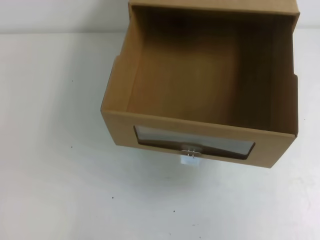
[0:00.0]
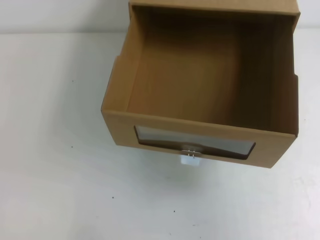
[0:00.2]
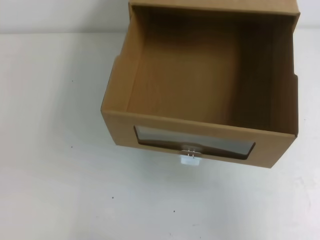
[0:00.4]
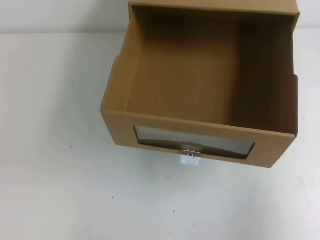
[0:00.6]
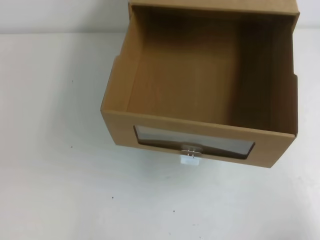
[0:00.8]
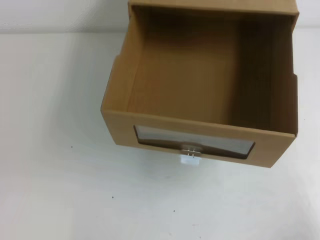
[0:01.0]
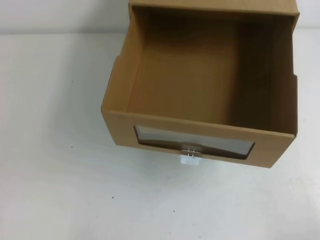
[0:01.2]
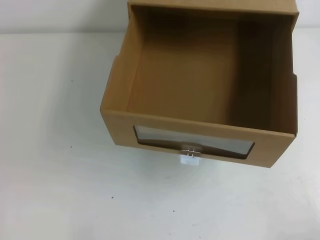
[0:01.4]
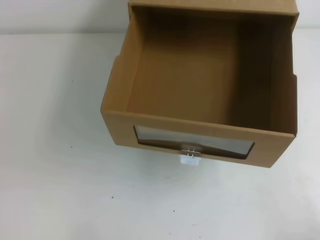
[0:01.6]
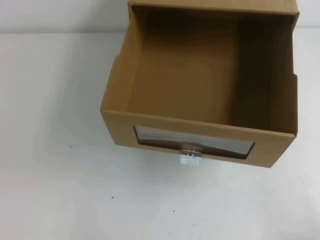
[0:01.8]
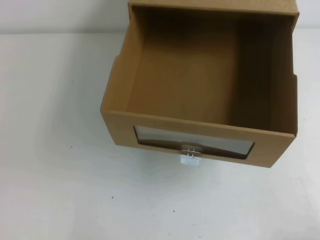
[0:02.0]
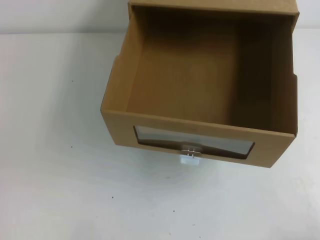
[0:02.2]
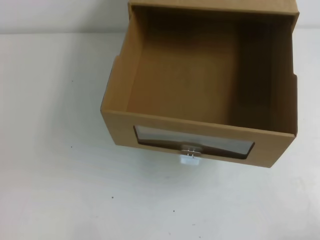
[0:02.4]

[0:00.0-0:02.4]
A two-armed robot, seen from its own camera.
Task of the whole recording: open the shoebox on the table.
Step, 0:00.0 to 0:02.4: Open the shoe box.
0:00.0 to 0:01.2: The right gripper moves downward, roughly 25 cm.

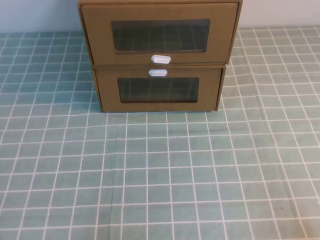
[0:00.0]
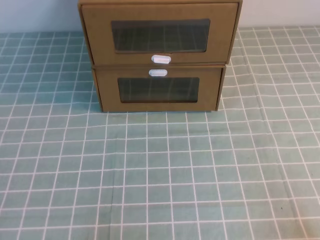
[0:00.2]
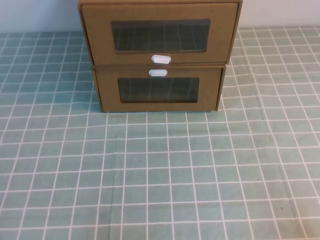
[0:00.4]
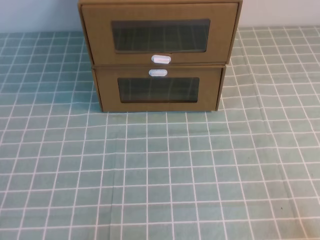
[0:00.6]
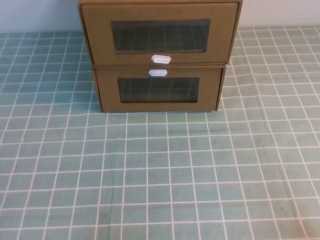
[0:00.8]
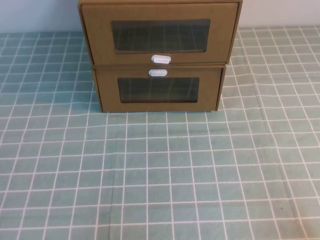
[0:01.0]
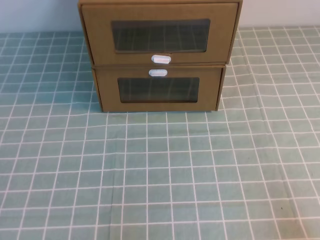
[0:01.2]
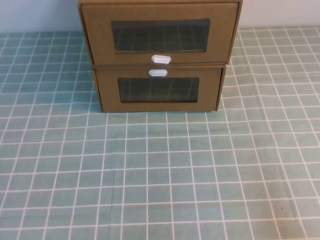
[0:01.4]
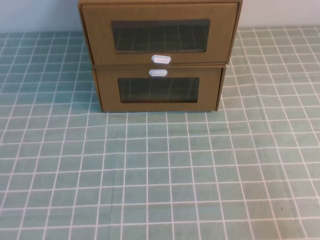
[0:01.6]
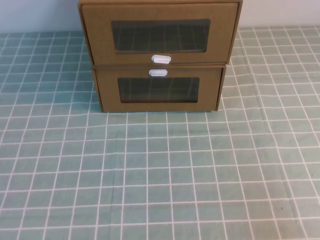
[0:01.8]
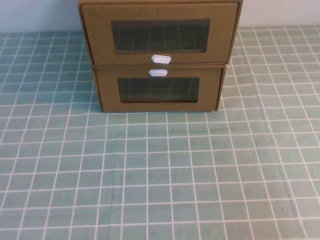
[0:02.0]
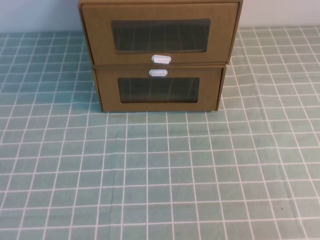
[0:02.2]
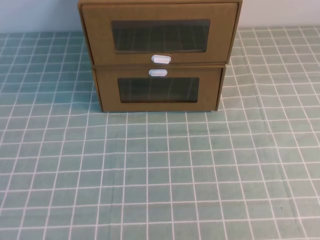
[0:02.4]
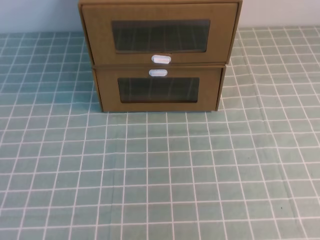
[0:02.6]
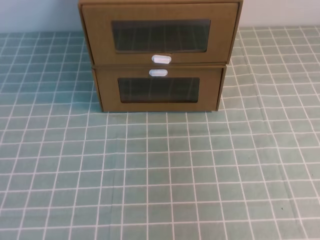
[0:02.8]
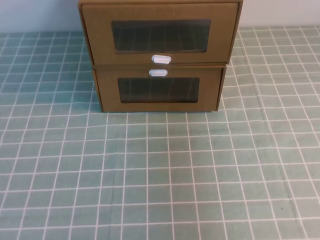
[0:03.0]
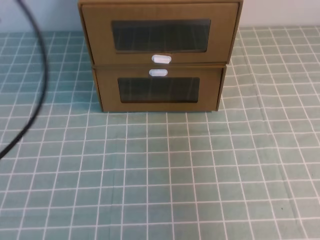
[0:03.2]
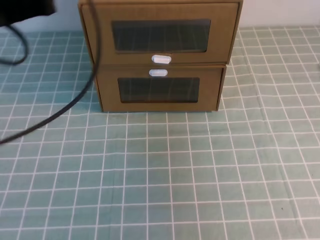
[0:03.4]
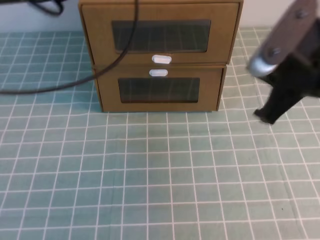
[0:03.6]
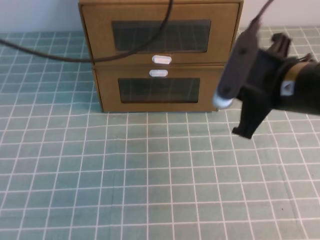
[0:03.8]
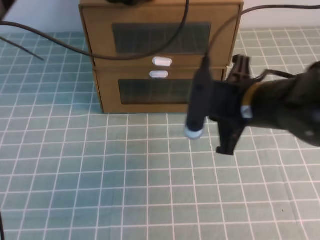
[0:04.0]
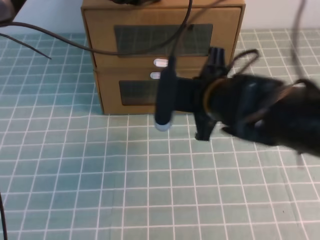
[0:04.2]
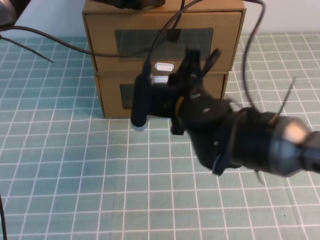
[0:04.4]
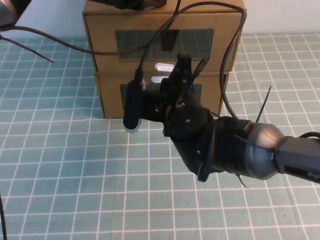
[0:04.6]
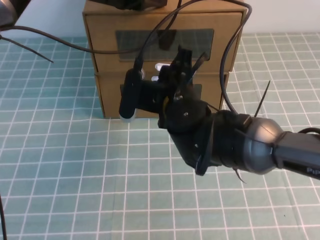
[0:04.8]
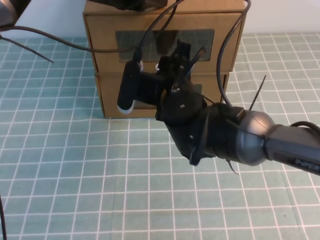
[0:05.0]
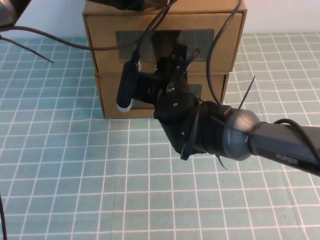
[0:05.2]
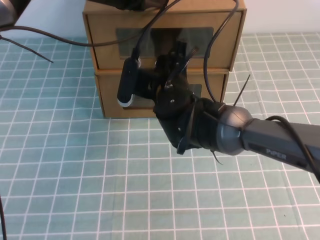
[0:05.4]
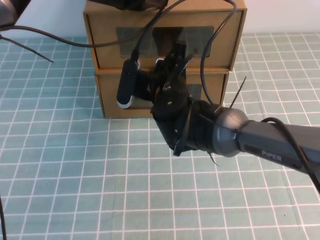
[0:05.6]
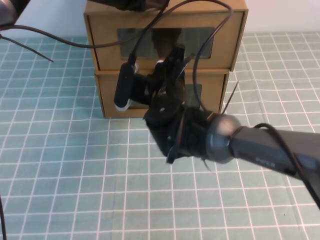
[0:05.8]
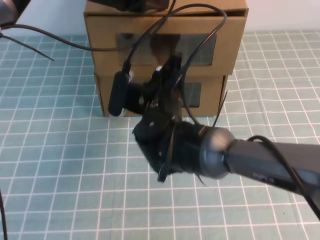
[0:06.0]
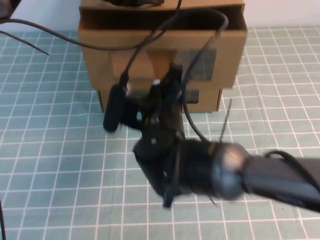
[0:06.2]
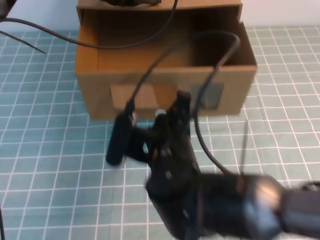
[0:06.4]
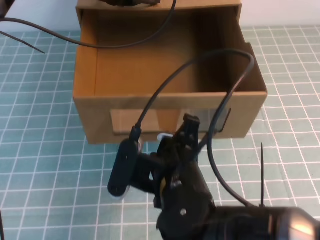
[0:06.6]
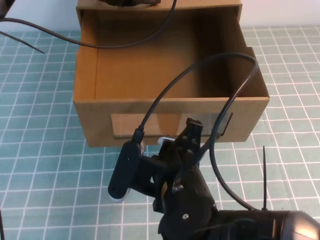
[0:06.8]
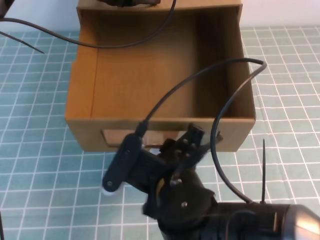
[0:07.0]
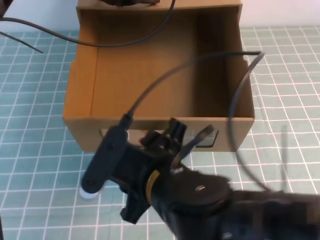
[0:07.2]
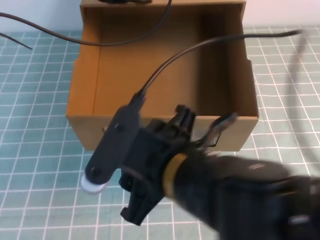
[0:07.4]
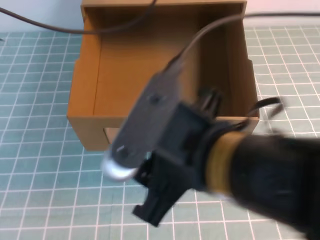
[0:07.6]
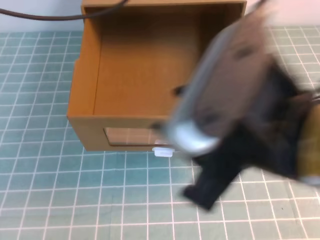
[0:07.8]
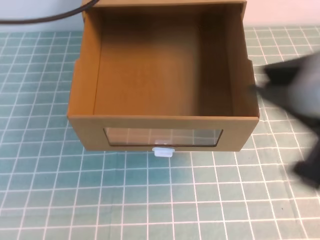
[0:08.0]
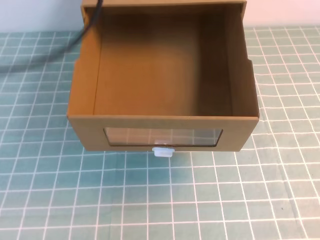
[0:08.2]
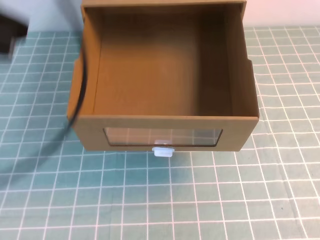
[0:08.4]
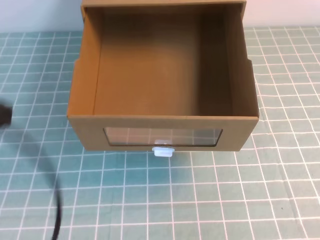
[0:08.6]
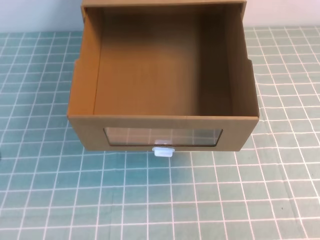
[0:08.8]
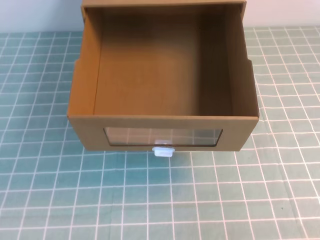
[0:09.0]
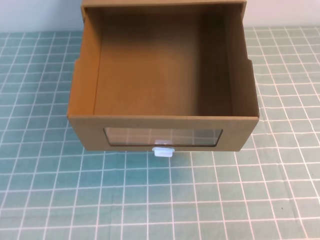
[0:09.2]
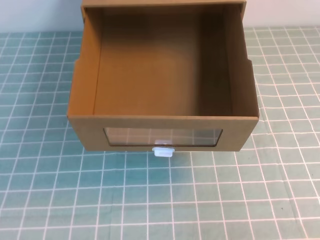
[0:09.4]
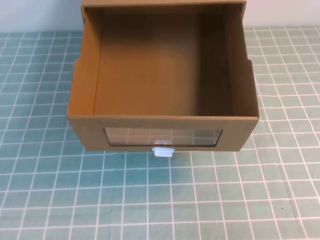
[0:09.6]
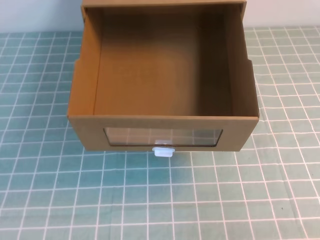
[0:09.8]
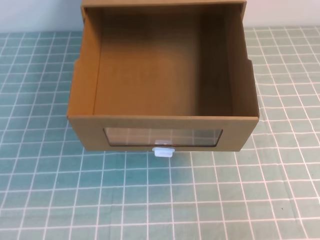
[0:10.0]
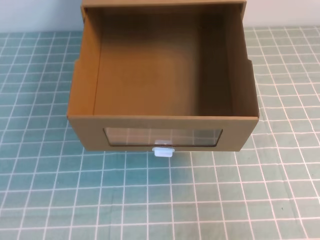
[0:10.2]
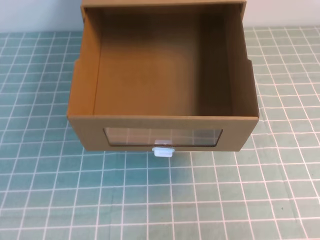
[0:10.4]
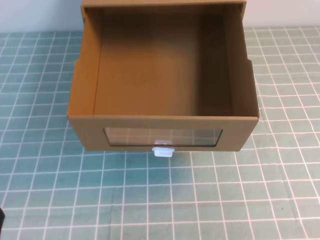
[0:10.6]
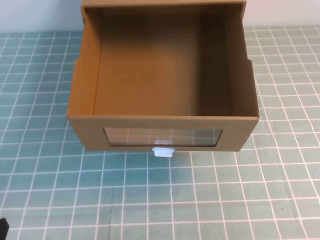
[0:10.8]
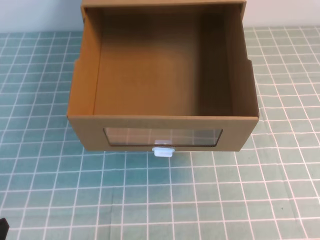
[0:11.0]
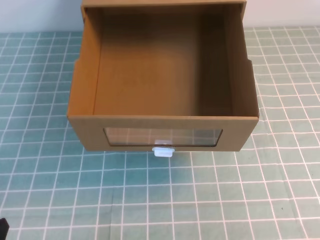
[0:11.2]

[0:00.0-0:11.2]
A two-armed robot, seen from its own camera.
Task of the whole recording: open the shoebox on the cyan tablecloth.
0:01.6 to 0:03.2: The grippers both shift upward and forward by about 25 cm.
0:03.2 to 0:04.8: The right gripper travels to the left, downward and forward by some 35 cm; the left gripper moves forward and to the right, some 25 cm.
0:04.8 to 0:06.4: The right gripper heads backward, covering roughly 10 cm.
0:06.4 to 0:08.0: The left gripper shifts about 20 cm backward, upward and to the left. The right gripper heads upward, to the right and backward, covering some 30 cm, and opens up.
0:08.0 to 0:09.6: The left gripper shifts some 30 cm backward and downward. The right gripper goes about 20 cm to the right and downward, and closes.

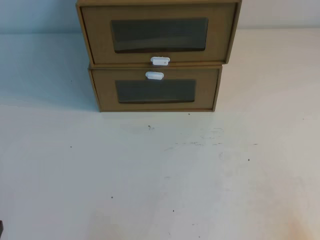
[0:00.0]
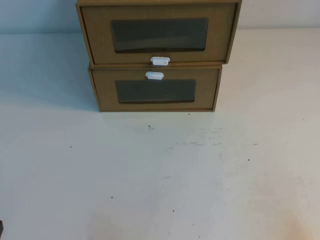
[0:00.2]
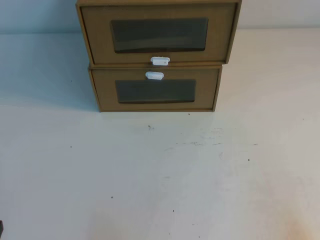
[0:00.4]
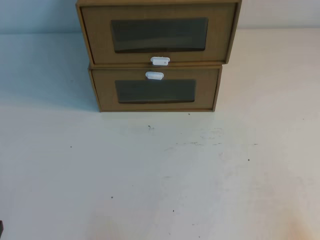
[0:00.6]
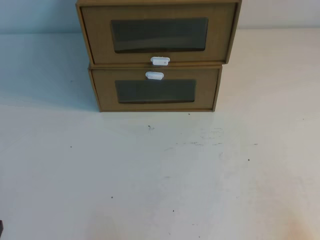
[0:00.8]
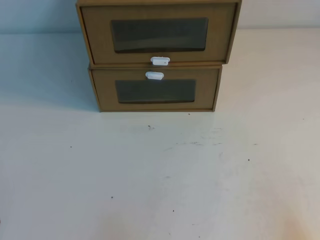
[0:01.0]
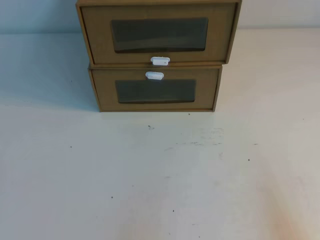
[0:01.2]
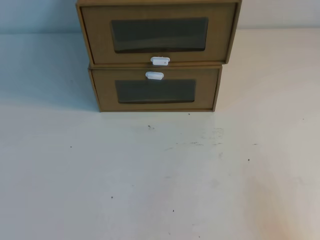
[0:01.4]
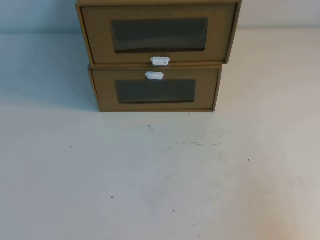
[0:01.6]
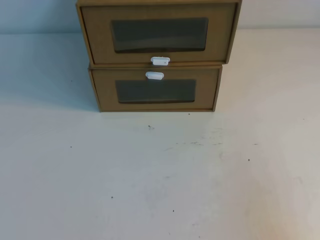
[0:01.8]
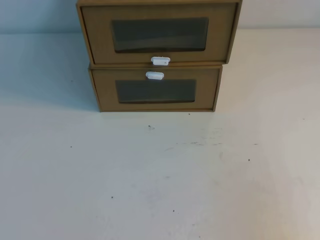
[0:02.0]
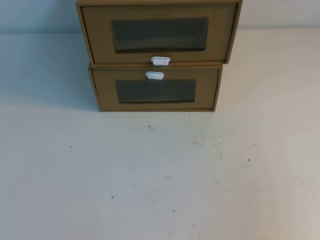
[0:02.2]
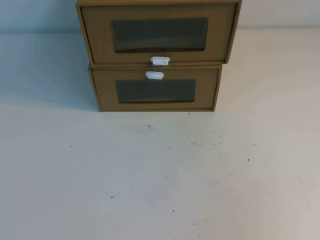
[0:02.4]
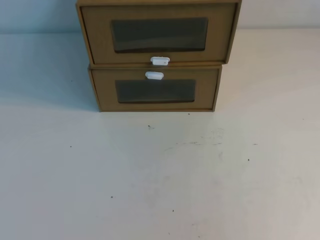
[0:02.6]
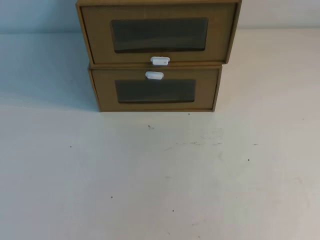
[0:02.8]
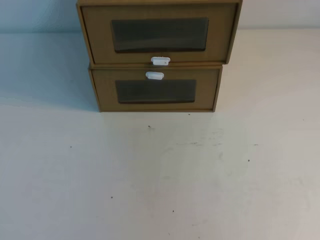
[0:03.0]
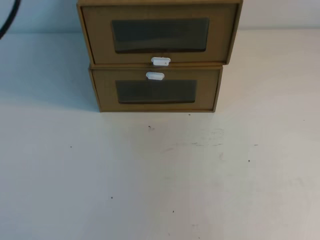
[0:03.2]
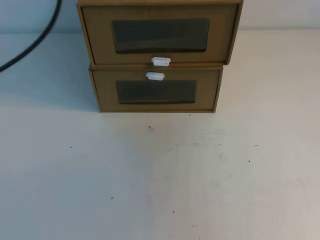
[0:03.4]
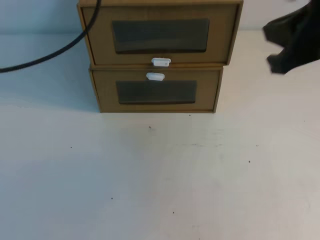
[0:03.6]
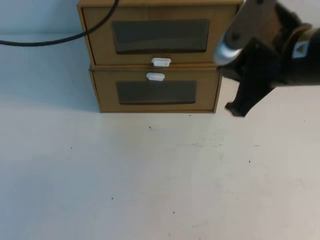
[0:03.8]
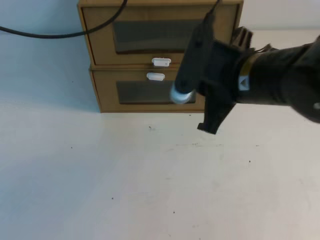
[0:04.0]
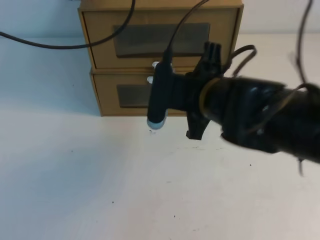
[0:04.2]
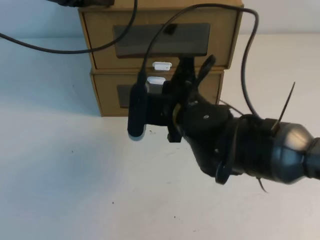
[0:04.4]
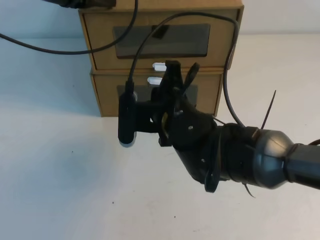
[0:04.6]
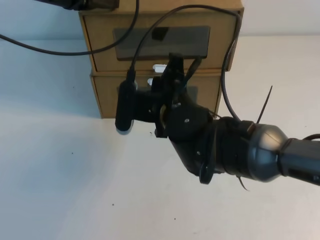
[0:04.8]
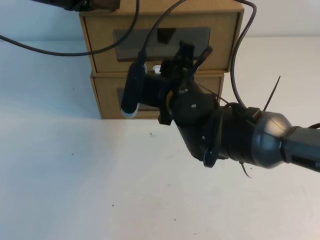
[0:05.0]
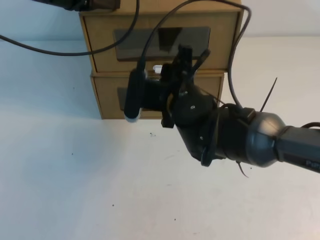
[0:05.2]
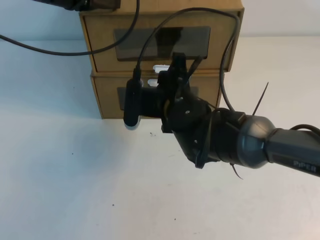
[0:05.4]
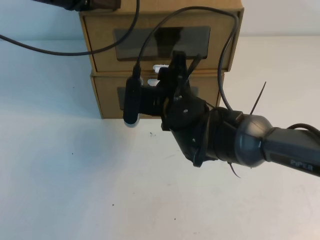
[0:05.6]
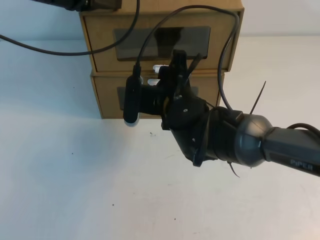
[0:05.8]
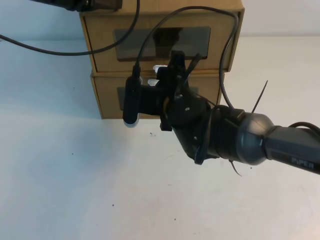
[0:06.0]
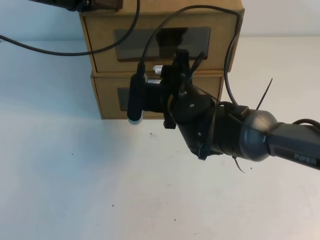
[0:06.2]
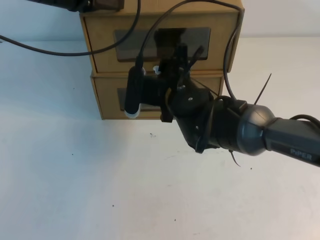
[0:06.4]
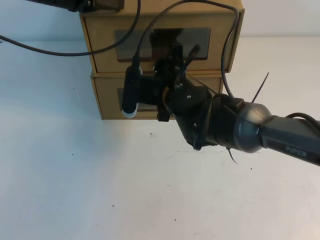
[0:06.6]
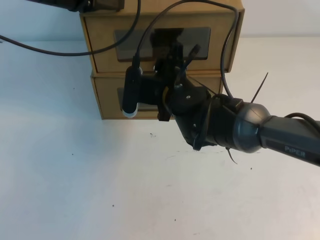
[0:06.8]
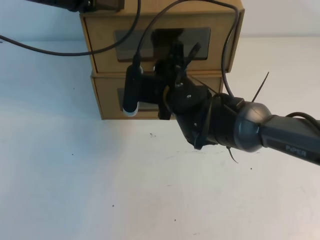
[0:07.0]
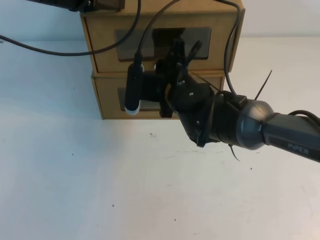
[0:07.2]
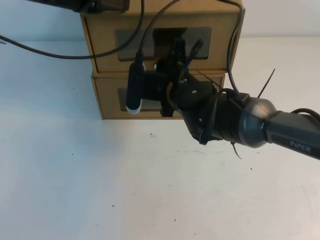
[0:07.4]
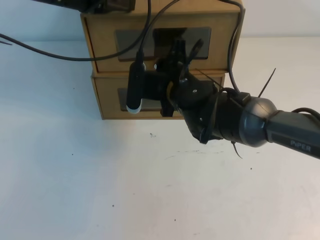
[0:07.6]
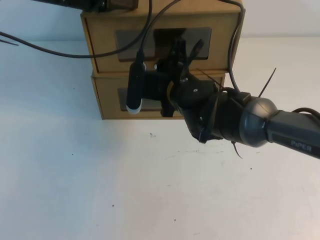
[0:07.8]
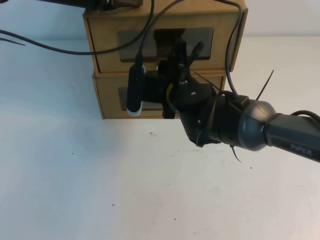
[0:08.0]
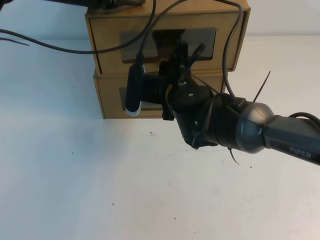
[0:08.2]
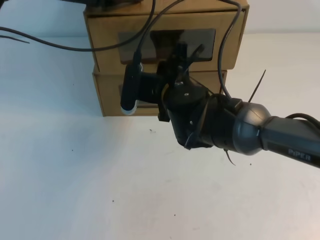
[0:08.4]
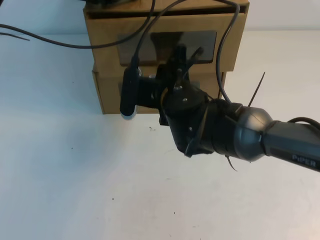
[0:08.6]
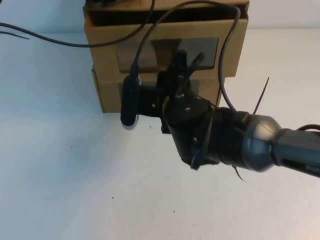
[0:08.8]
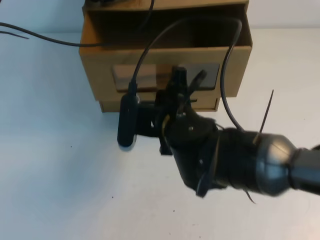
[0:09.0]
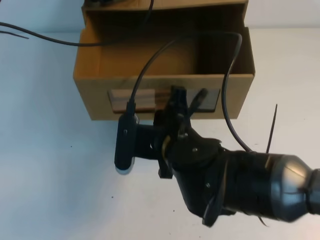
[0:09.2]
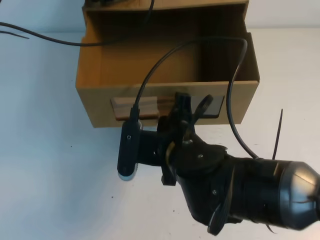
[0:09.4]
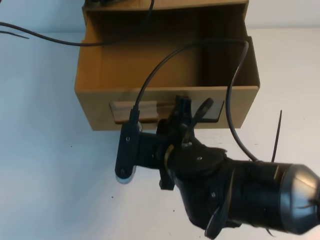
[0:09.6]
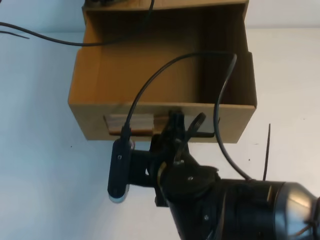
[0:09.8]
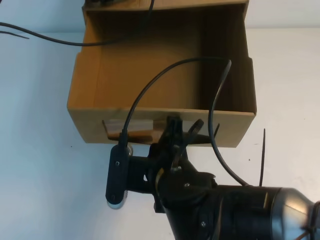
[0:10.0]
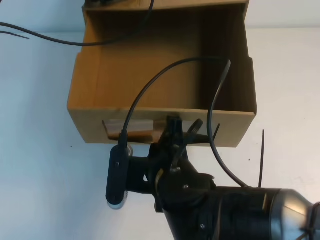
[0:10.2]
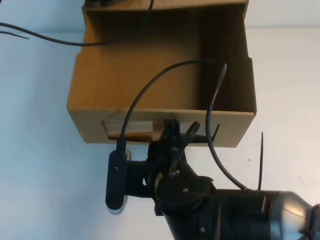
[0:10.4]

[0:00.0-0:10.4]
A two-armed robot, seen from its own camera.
Task of the whole recording: open the shoebox on the table.
0:03.0 to 0:04.4: The right gripper goes roughly 40 cm to the left, downward and forward. Meanwhile the left gripper moves forward and downward, approximately 30 cm.
0:04.4 to 0:06.0: The right gripper changes place by some 5 cm, and opens up.
0:06.0 to 0:07.4: The right gripper closes.
0:07.4 to 0:09.0: The right gripper travels backward by approximately 10 cm.
0:09.0 to 0:10.4: The right gripper shifts about 10 cm backward.
